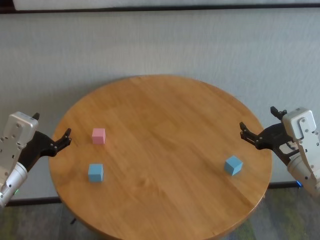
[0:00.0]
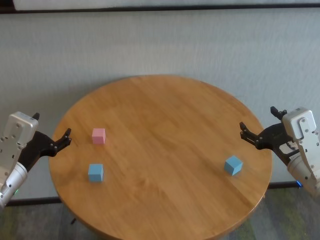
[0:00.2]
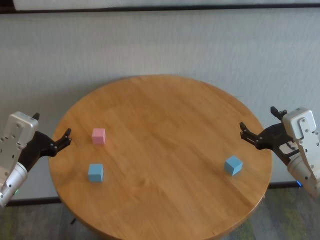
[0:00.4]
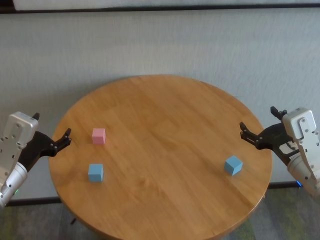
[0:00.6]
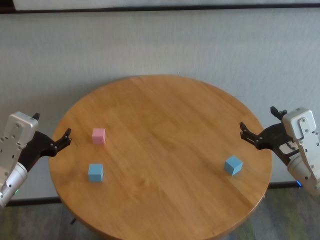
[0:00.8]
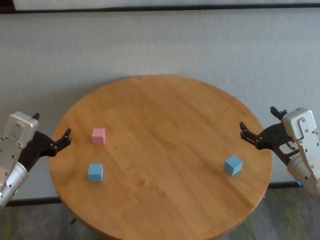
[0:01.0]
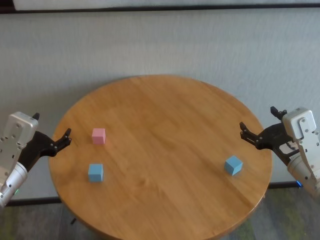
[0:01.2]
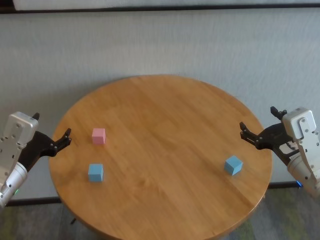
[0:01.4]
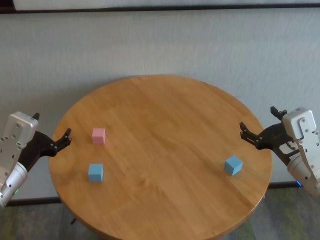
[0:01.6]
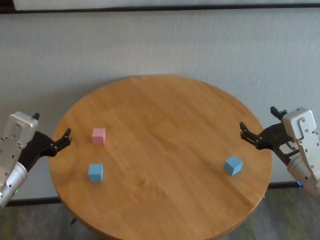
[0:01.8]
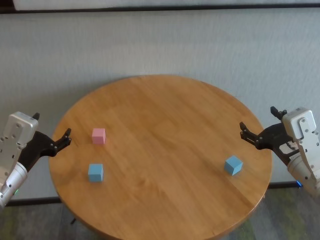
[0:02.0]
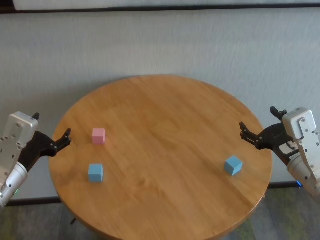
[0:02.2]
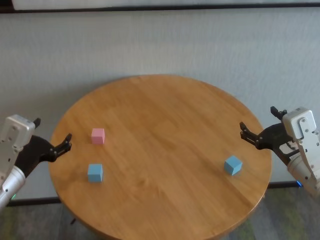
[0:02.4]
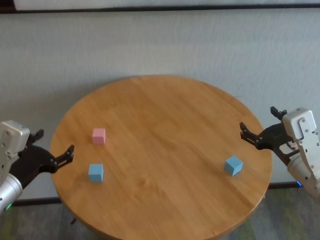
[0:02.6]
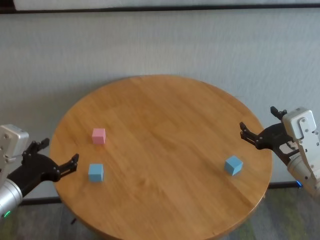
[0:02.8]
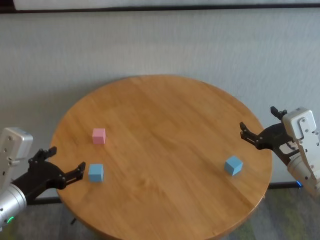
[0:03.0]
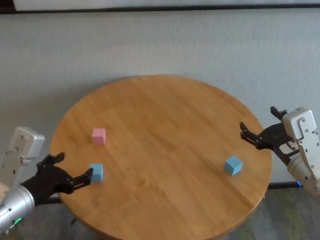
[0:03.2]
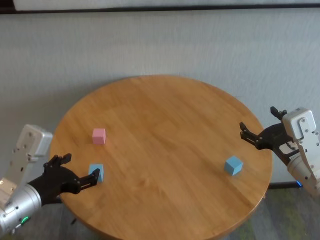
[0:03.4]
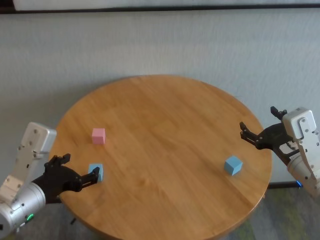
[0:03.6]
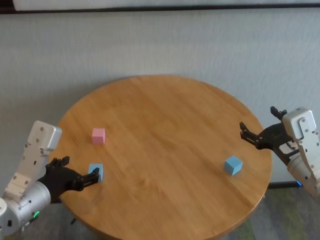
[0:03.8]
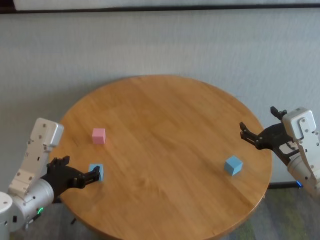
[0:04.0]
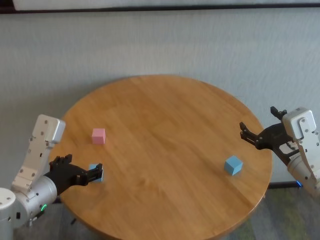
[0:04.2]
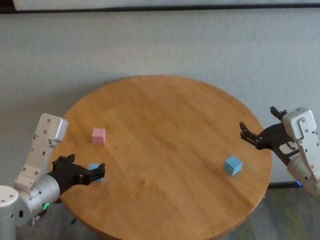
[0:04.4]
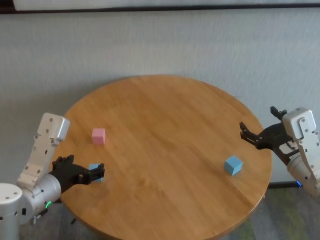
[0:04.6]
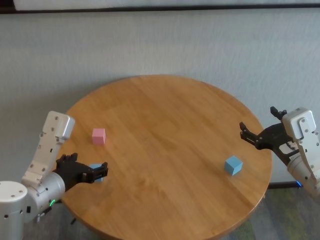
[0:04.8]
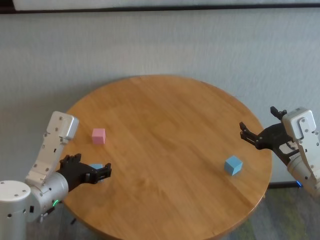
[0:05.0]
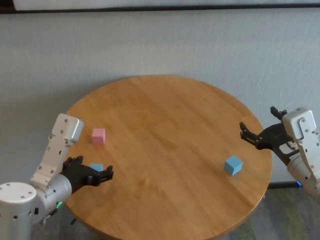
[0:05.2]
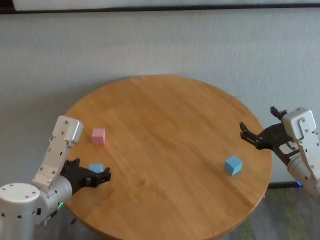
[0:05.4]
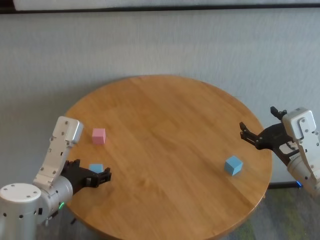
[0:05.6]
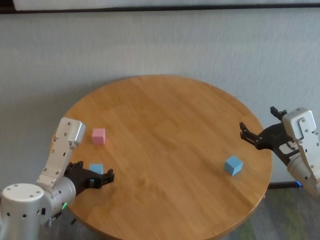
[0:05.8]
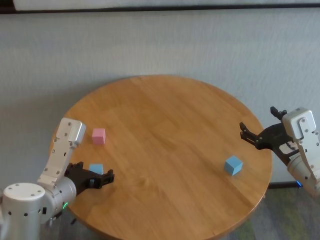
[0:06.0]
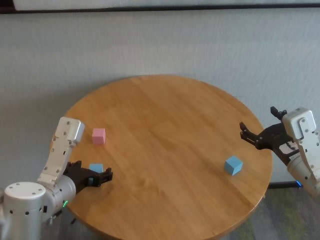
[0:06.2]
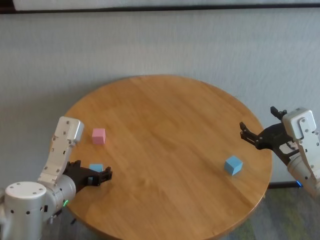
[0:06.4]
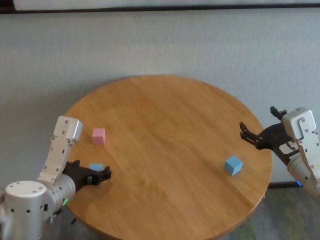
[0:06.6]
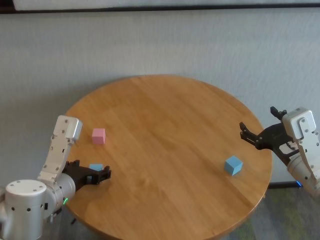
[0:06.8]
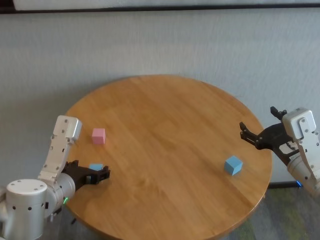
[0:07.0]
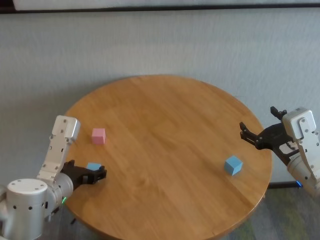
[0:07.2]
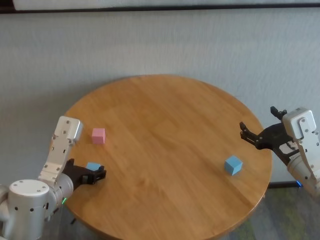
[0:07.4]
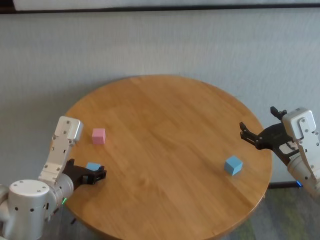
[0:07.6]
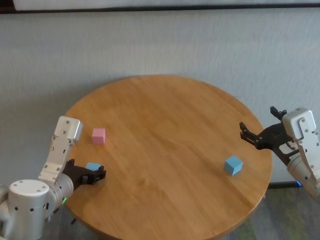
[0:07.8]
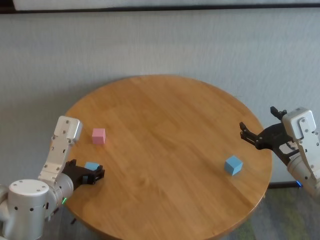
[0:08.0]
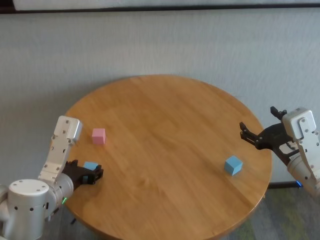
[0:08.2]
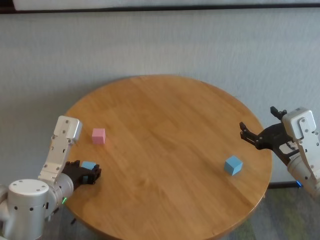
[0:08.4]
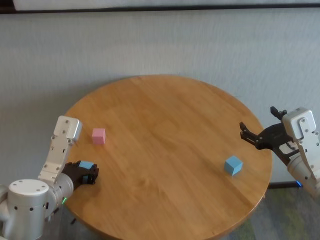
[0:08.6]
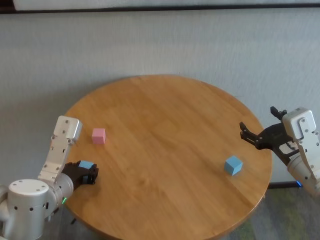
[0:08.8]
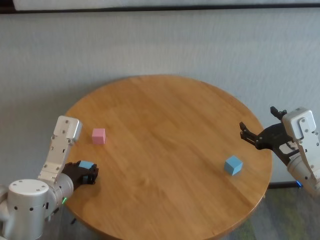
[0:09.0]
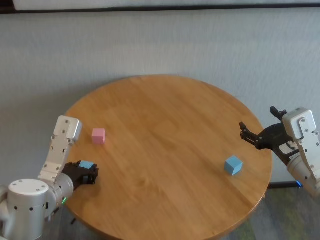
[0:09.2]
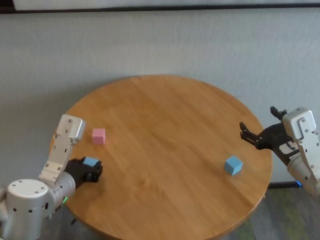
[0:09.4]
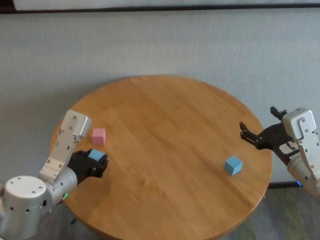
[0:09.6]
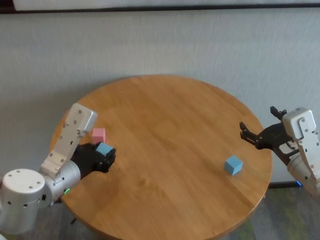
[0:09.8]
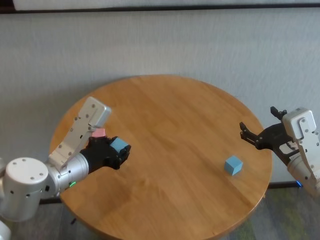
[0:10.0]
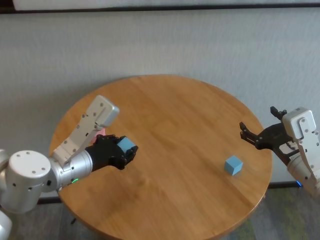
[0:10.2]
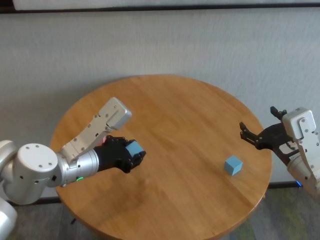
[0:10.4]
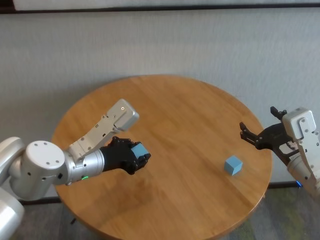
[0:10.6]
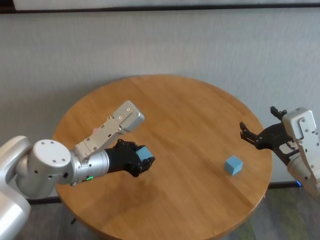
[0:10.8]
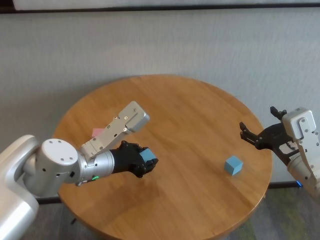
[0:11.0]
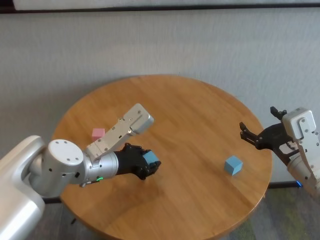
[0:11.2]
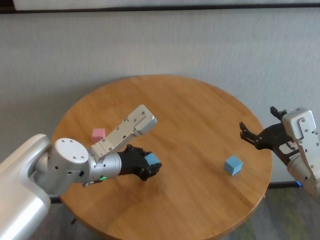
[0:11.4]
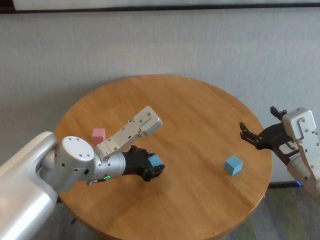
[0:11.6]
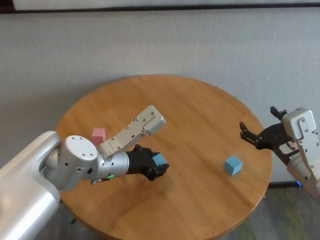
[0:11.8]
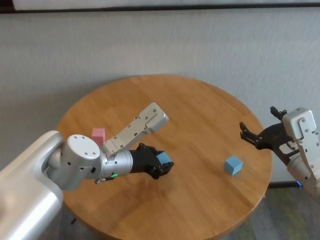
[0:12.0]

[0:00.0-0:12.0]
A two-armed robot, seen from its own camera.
Task of the whole recording: stack building blocks on the table.
Step, 0:00.0 to 0:09.0: Grasp the blue building block with right gripper.

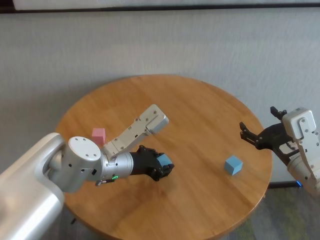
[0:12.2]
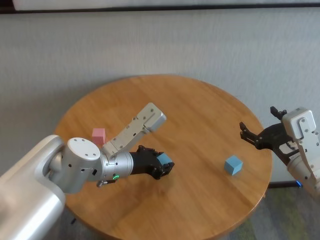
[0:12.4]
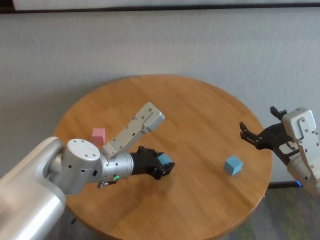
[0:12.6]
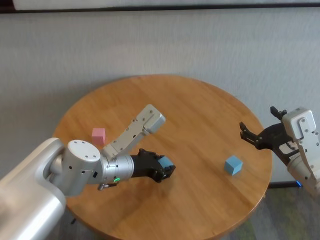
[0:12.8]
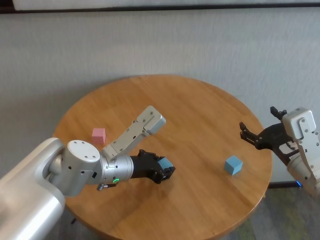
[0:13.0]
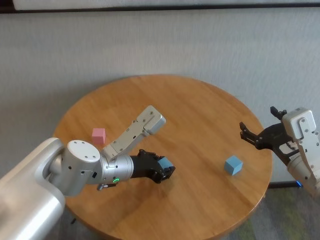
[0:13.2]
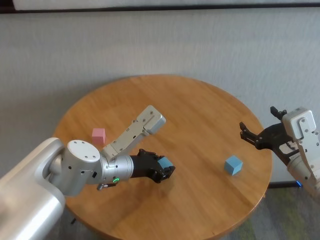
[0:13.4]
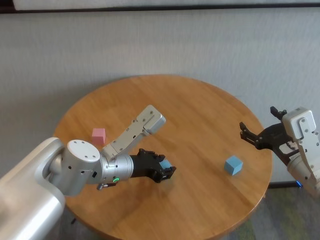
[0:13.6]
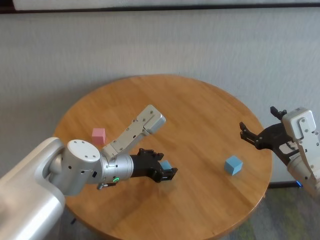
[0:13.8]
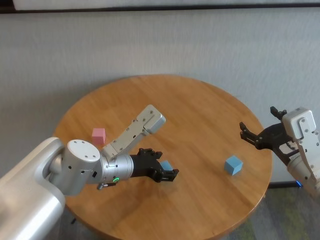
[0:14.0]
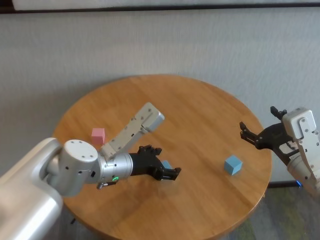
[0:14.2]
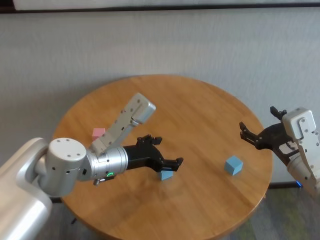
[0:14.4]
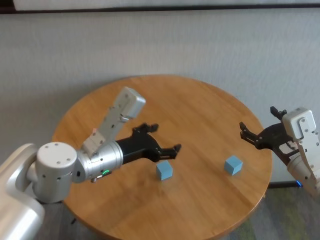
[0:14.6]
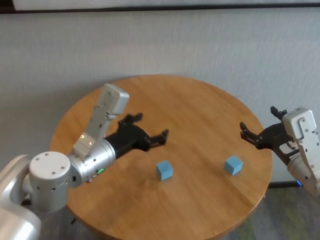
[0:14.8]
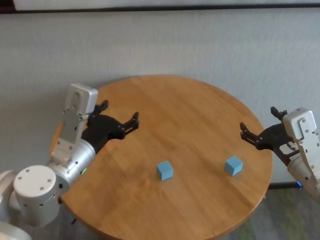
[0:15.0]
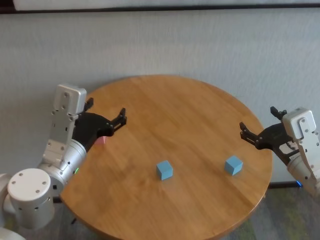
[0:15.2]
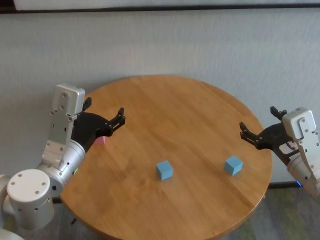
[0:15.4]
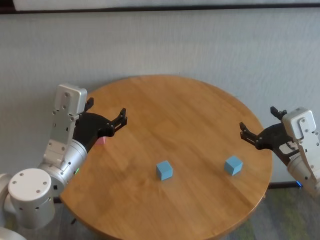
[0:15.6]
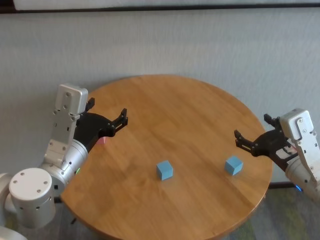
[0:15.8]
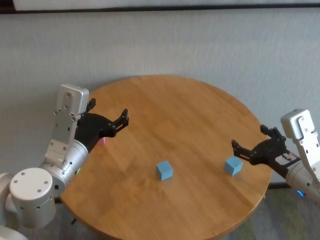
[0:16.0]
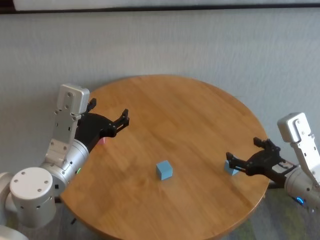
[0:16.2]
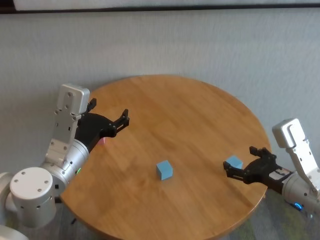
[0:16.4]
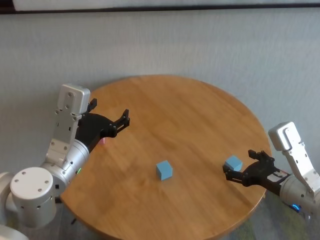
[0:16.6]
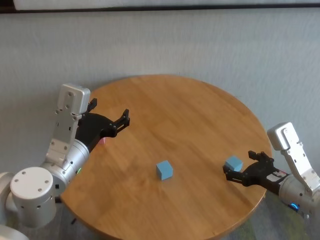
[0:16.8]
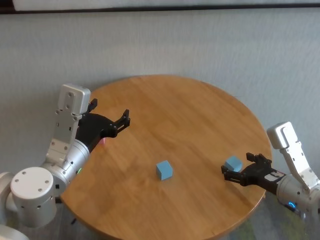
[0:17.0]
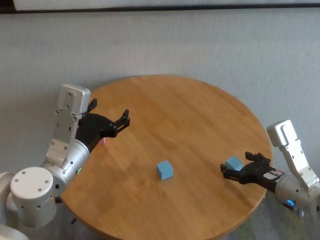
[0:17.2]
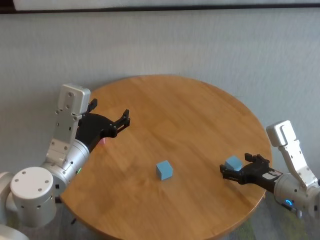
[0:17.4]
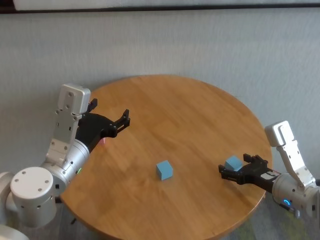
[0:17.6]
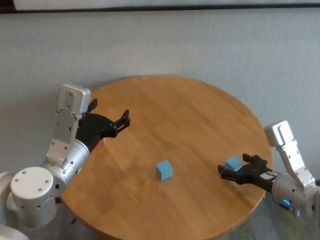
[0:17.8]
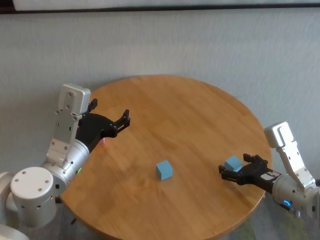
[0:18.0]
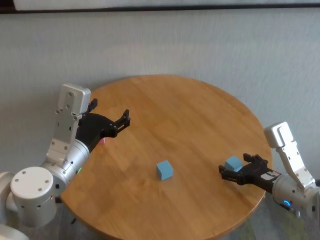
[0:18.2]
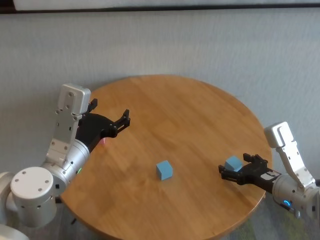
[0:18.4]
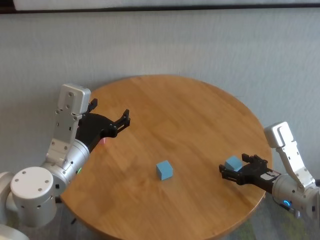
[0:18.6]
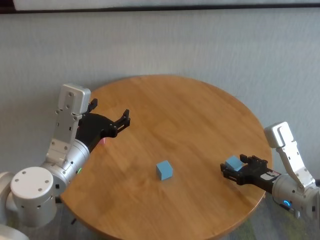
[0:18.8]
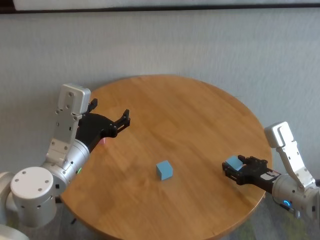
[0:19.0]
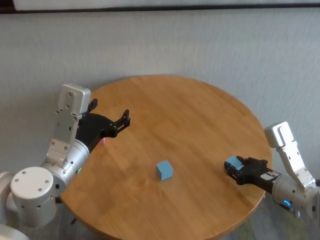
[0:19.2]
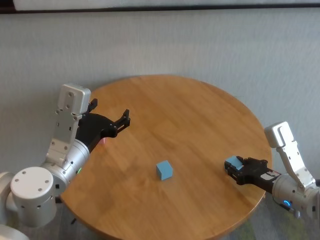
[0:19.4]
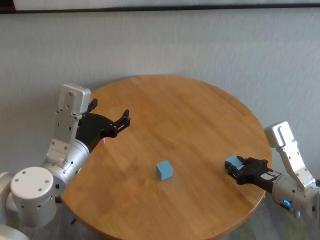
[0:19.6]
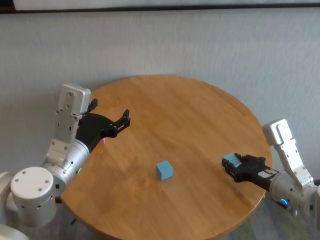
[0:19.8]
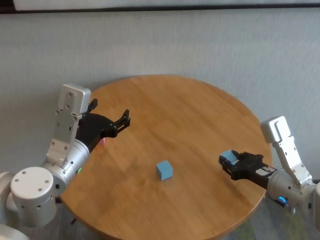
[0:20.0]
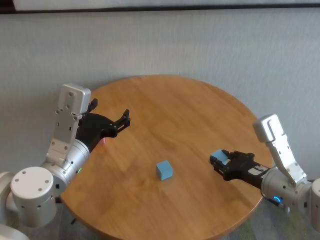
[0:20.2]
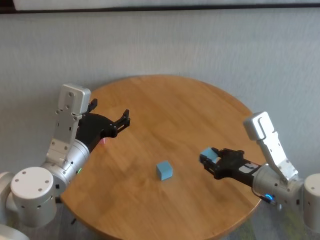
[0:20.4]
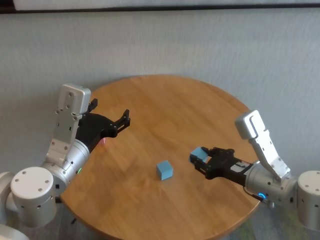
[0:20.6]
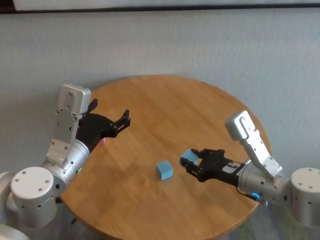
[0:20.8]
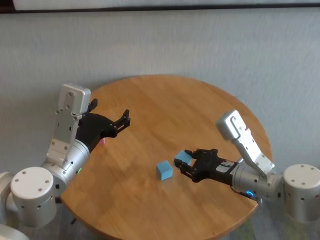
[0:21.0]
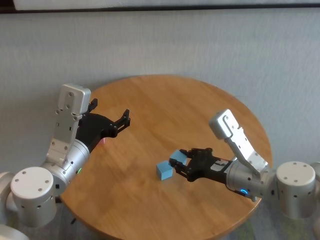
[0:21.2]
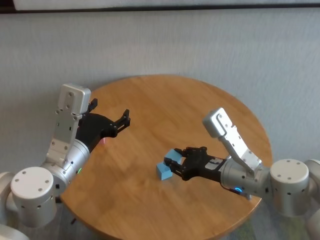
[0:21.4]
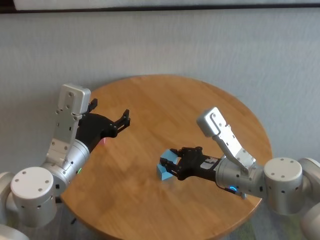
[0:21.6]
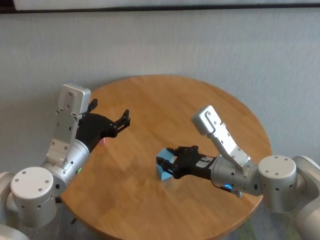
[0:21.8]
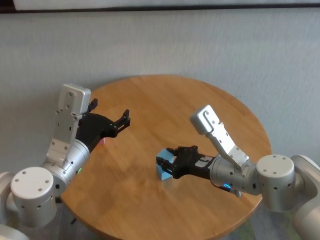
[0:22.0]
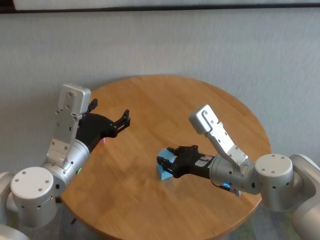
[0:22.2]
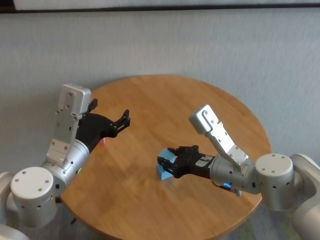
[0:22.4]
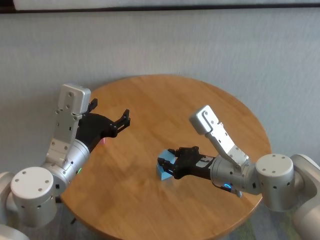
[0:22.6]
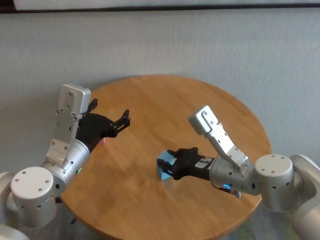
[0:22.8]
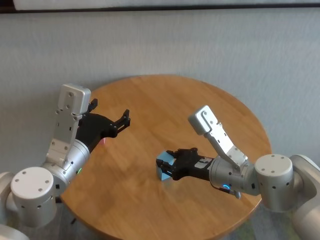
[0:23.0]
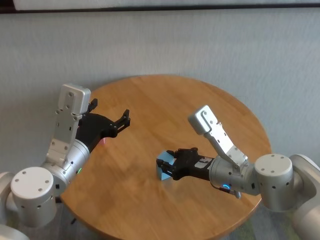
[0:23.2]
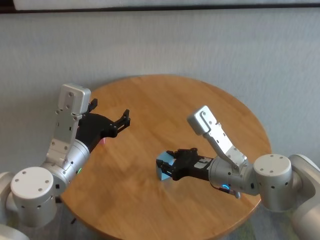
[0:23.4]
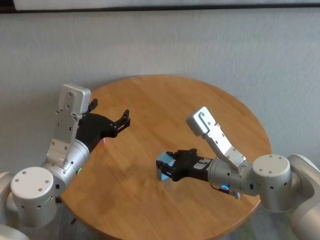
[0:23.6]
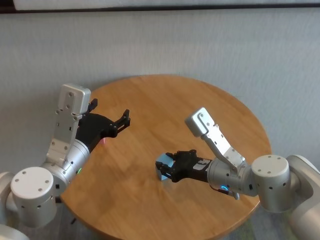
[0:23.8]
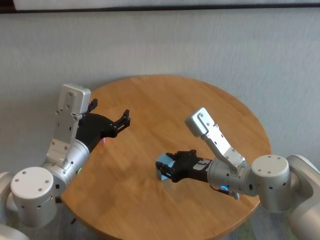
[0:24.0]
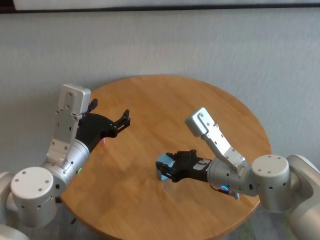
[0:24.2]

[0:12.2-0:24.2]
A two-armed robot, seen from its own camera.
Task of the whole recording: stack building blocks on the table.
Step, 0:14.4 to 0:19.4: Grasp the blue building block with right gripper.
